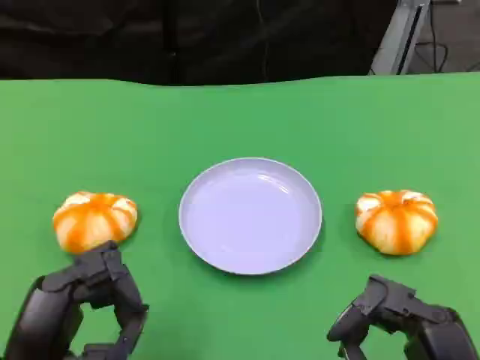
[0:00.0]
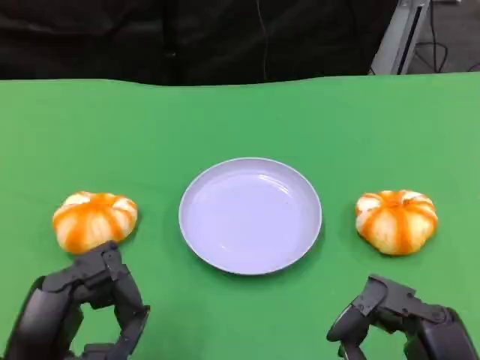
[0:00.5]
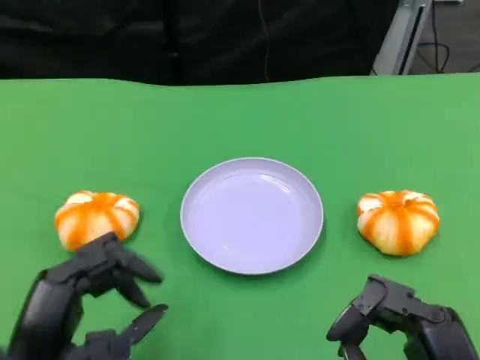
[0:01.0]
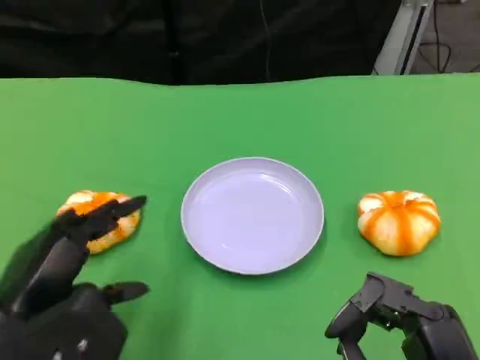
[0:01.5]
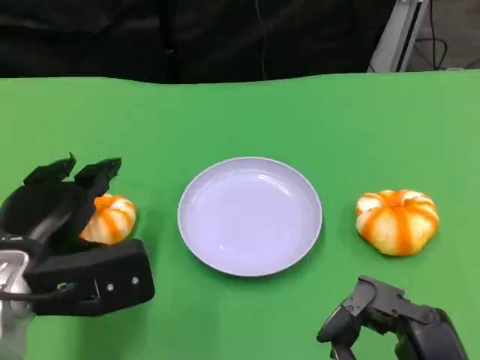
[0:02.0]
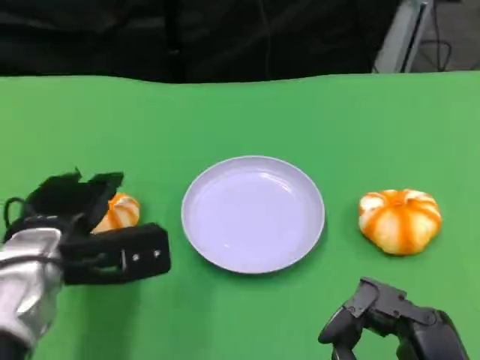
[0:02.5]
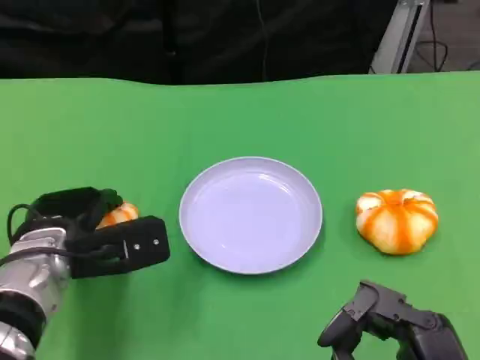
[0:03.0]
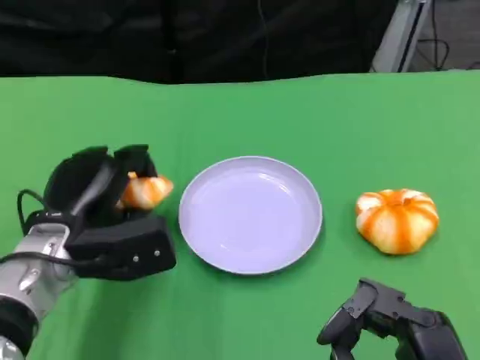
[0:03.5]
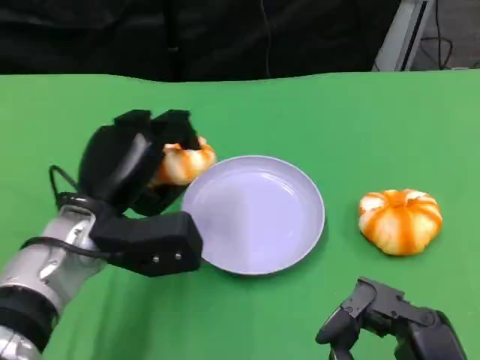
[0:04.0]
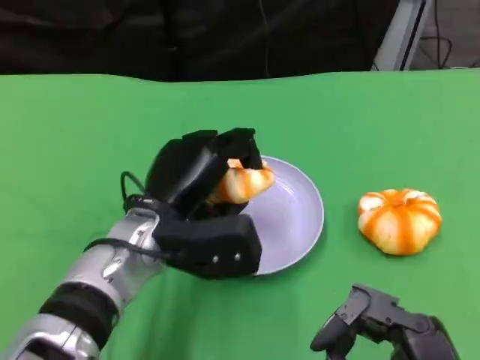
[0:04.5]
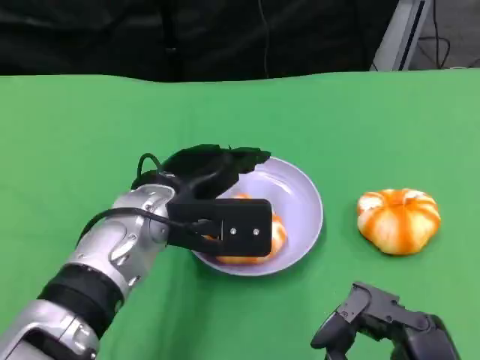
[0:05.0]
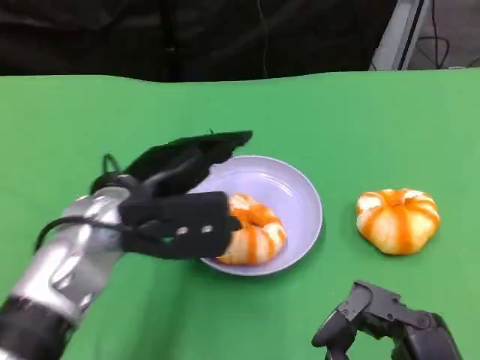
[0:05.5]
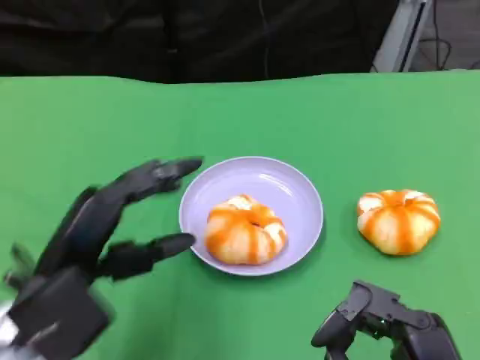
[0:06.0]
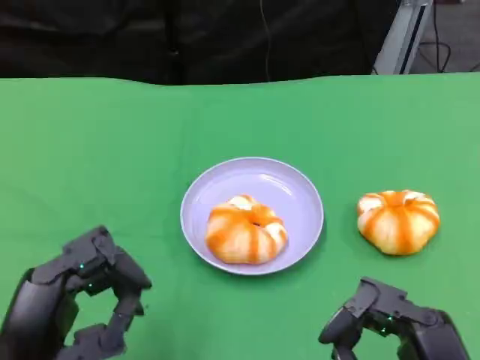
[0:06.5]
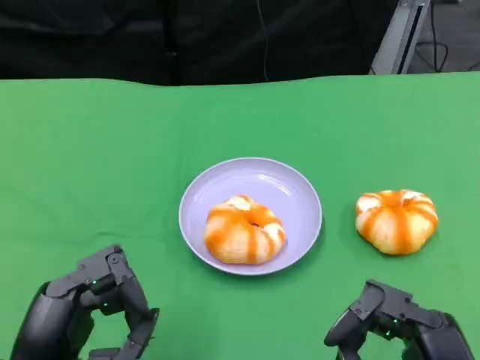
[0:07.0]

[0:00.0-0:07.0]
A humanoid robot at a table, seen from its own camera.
Task of the whole recording: Grasp the bread from the table and place it into the plate.
0:00.0 to 0:02.0: The left hand moves forward, roughly 10 cm.
0:02.0 to 0:03.5: The left hand shifts about 5 cm forward.
0:03.5 to 0:05.0: The left hand shifts some 10 cm to the right.
0:05.0 to 0:07.0: The left hand moves backward and to the left, roughly 20 cm.

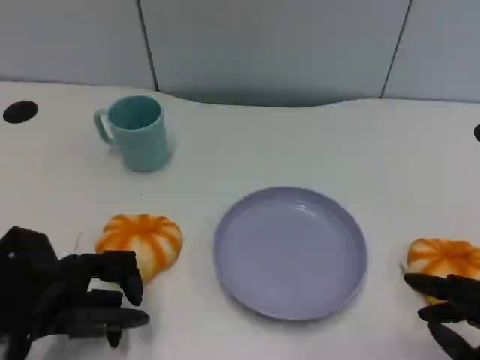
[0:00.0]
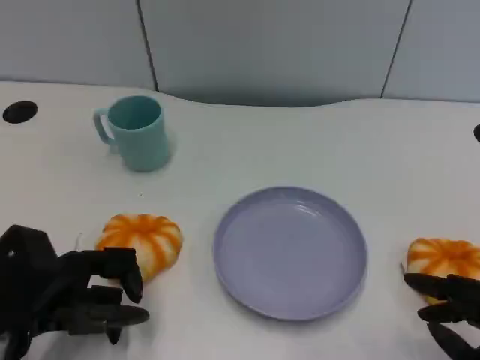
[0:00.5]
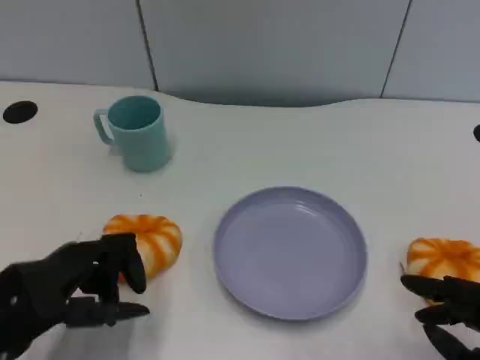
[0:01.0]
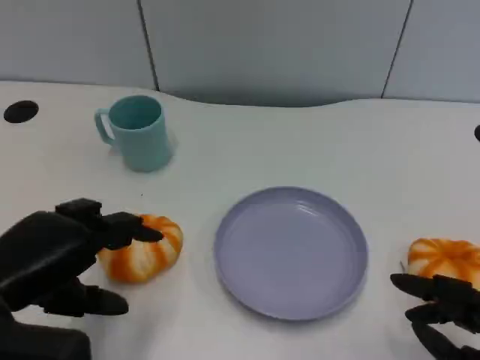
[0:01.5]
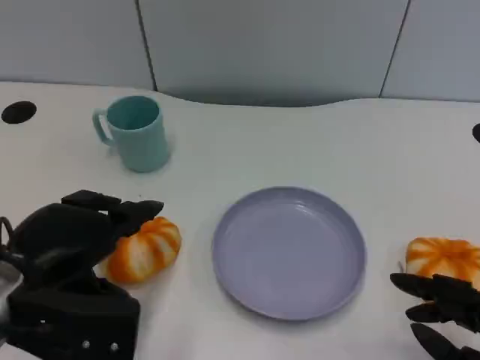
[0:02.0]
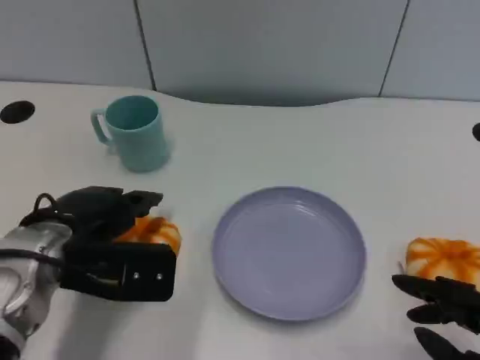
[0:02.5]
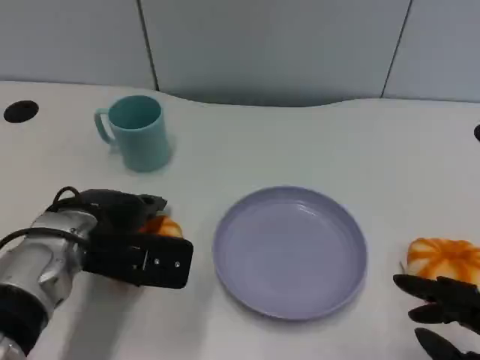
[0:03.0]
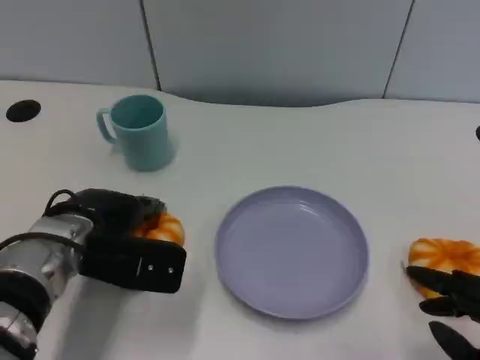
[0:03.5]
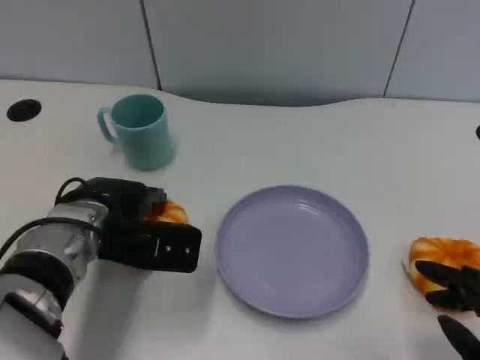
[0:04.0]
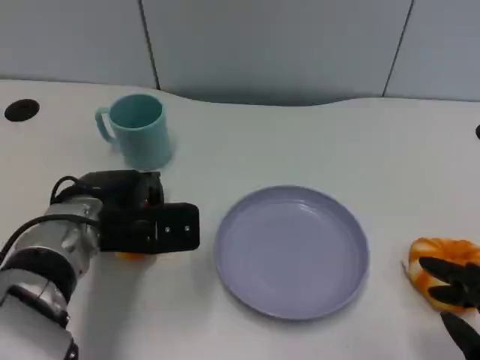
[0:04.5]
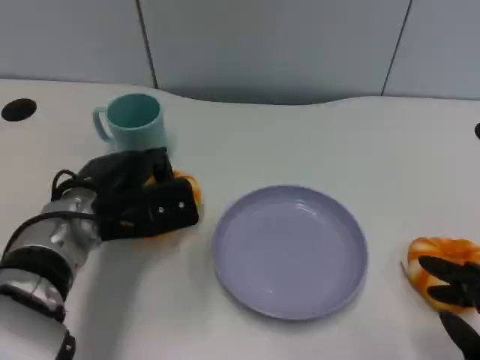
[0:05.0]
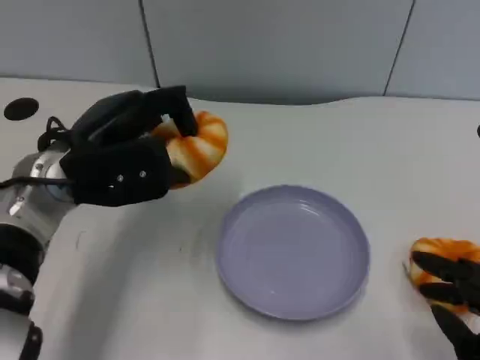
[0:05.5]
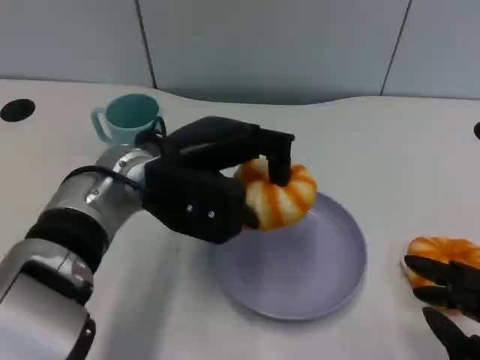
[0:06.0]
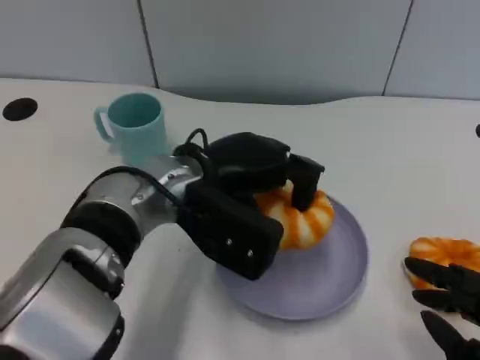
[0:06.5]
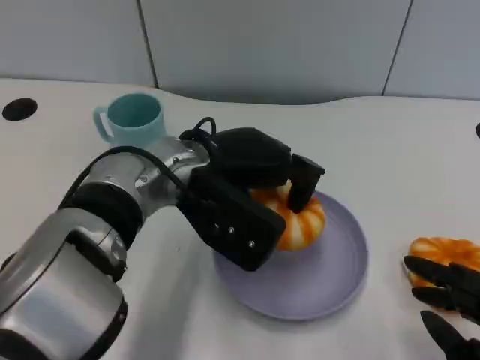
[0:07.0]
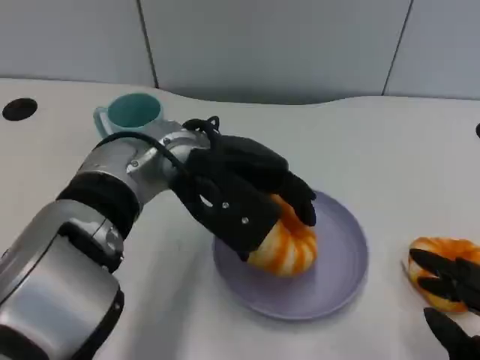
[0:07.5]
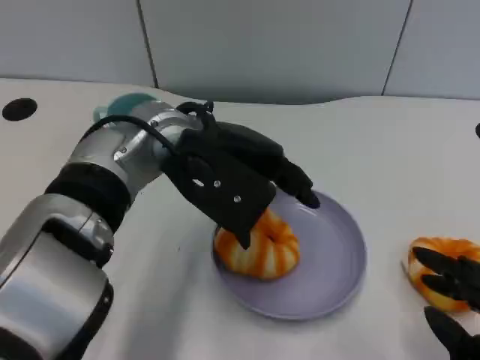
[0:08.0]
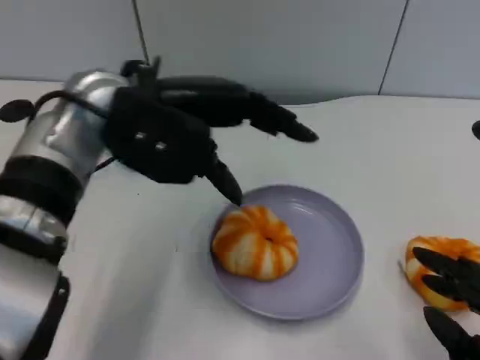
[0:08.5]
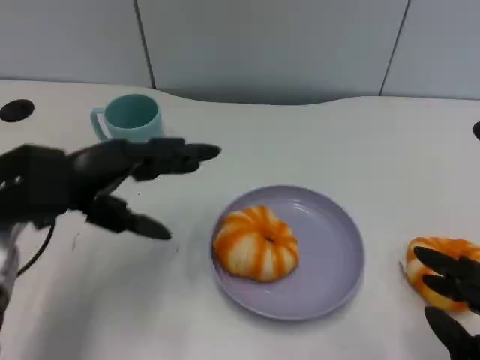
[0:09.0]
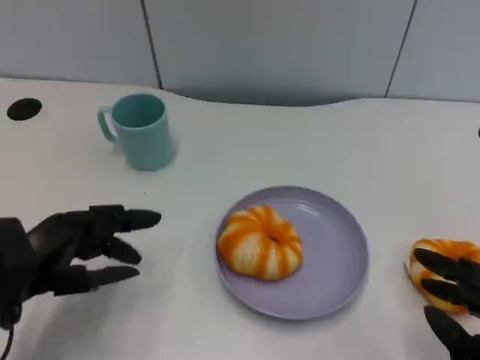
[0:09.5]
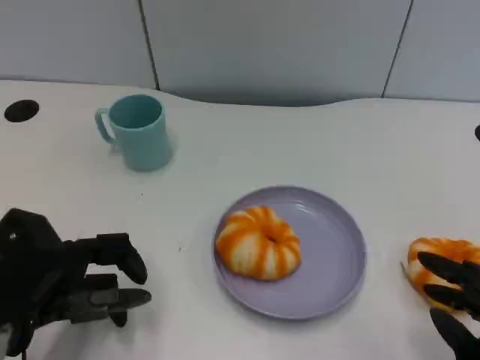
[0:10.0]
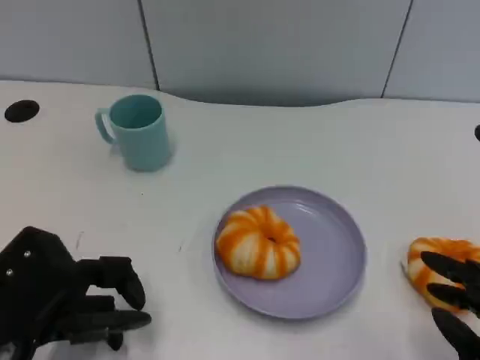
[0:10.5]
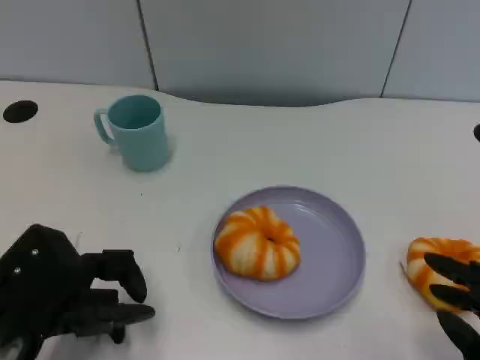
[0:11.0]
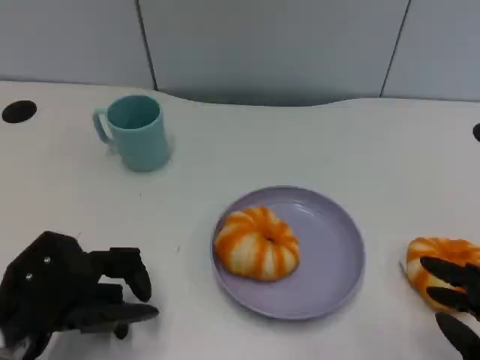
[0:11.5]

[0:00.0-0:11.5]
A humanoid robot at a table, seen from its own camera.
Task of the whole recording: Grasp the bread from the table and place it into the plate.
0:00.0 to 0:02.0: The left hand goes approximately 5 cm upward.
0:02.0 to 0:04.0: The left hand goes some 10 cm forward and to the right.
0:04.0 to 0:06.0: The left hand heads to the right and upward, covering about 10 cm.
0:07.5 to 0:09.5: The left hand goes approximately 25 cm to the left, backward and downward.
0:09.5 to 0:11.5: There are only small adjustments of the hands.

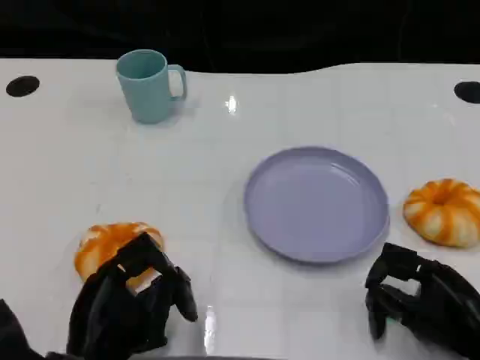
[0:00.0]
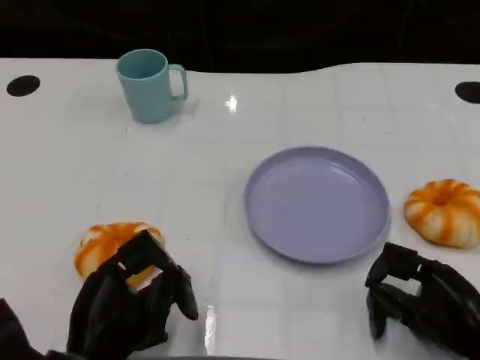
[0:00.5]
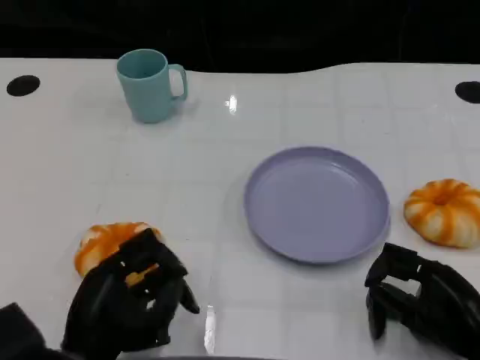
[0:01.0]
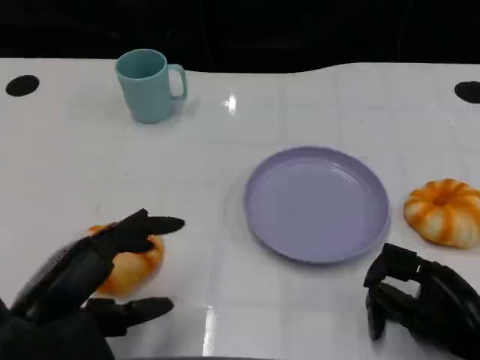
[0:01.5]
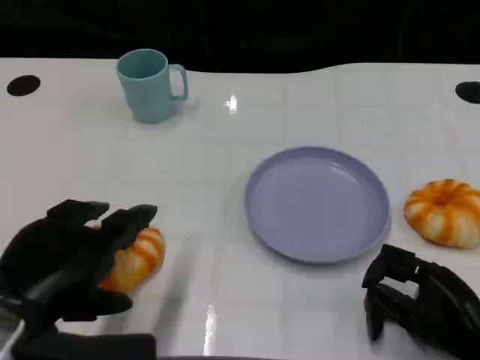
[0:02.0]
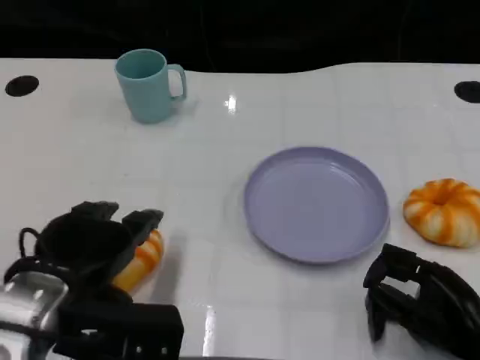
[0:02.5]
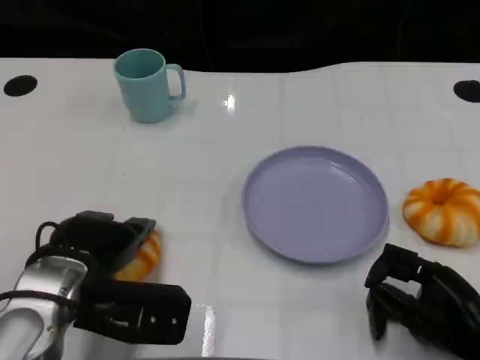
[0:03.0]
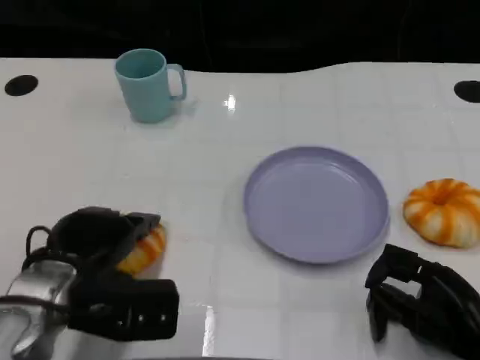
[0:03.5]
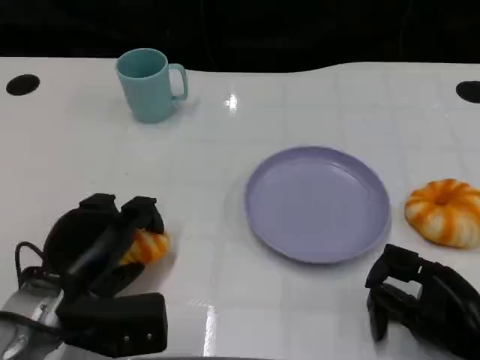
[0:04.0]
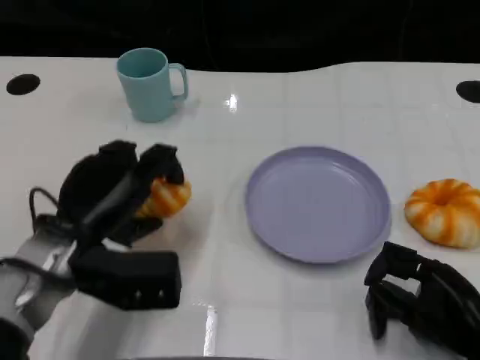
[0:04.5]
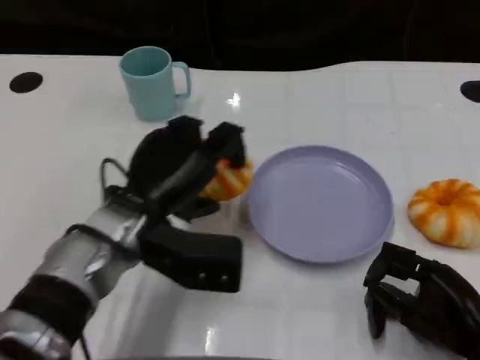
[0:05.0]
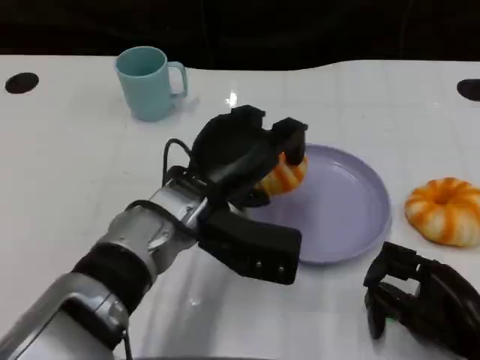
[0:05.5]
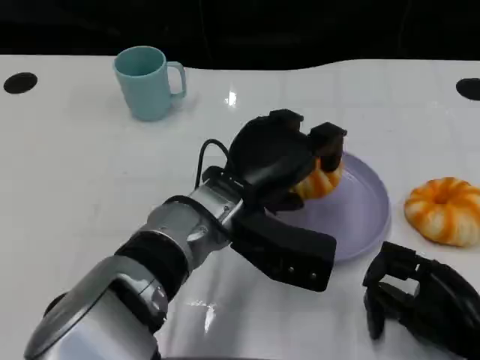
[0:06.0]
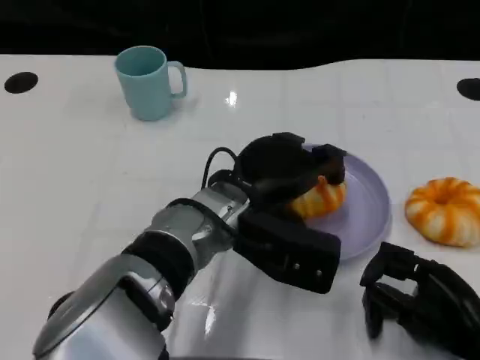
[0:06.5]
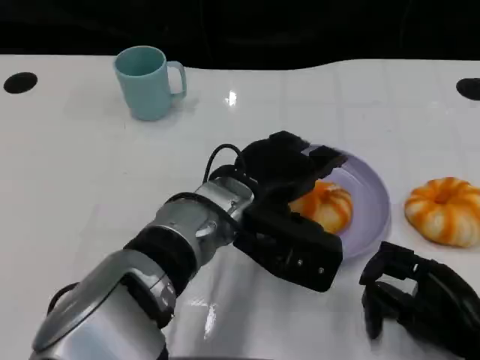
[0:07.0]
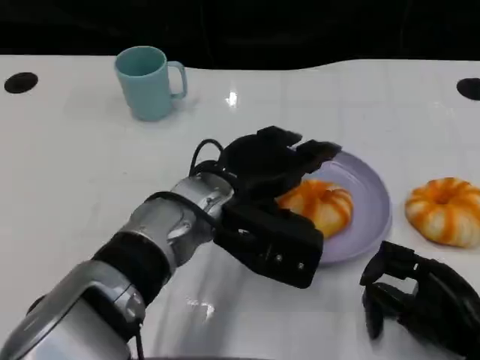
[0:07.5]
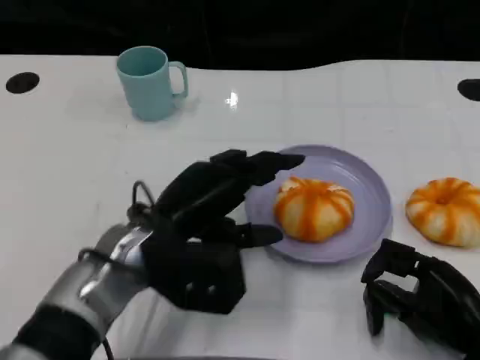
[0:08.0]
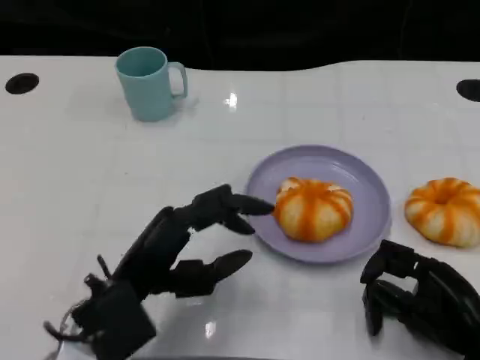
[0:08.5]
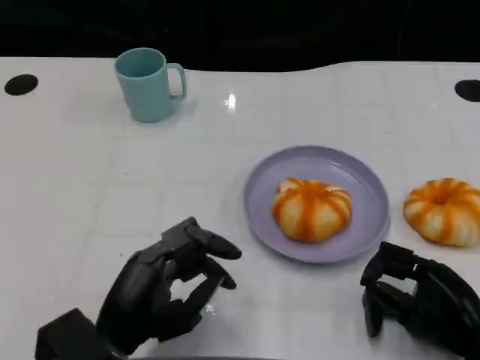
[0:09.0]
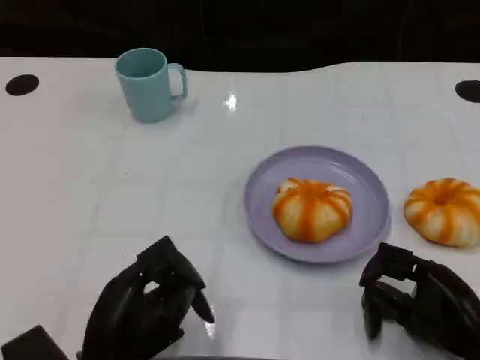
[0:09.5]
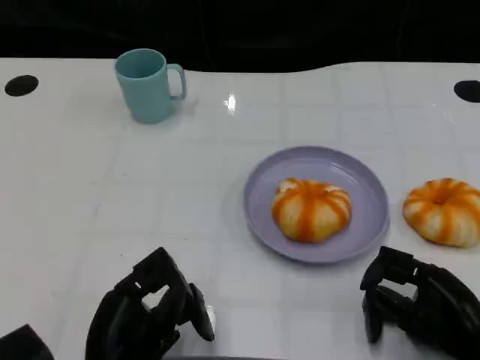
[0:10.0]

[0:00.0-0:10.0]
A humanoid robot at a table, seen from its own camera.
Task of the whole recording: Grasp the bread from the table and place it into the plate.
0:00.0 to 0:02.0: The left hand goes about 10 cm upward.
0:02.0 to 0:04.0: The left hand heads downward and forward, covering roughly 10 cm.
0:04.0 to 0:06.0: The left hand goes approximately 15 cm to the right.
0:06.0 to 0:08.0: The left hand moves to the left, some 10 cm.
0:08.0 to 0:10.0: The left hand moves backward and downward, roughly 15 cm.
